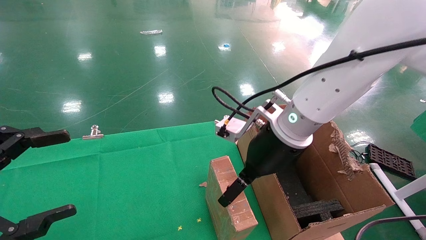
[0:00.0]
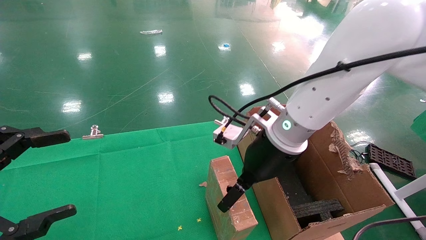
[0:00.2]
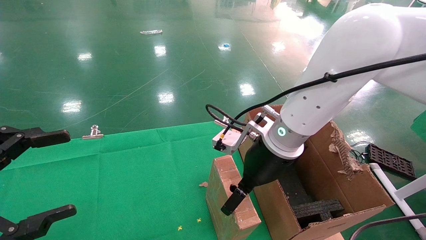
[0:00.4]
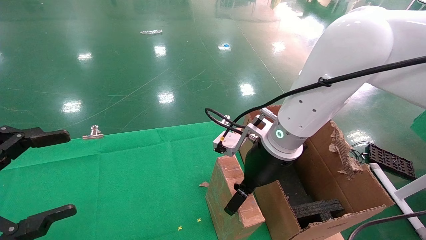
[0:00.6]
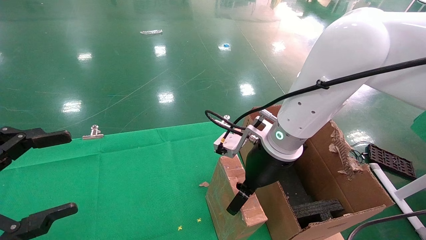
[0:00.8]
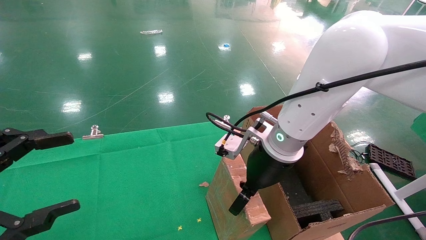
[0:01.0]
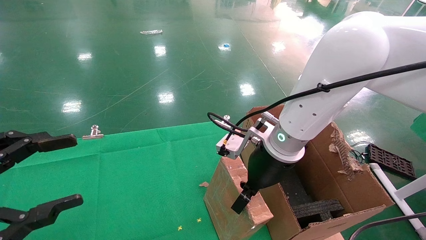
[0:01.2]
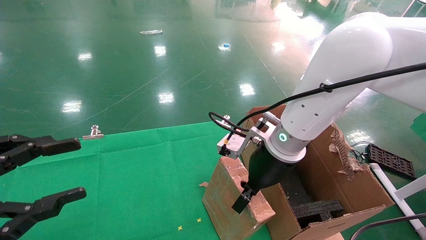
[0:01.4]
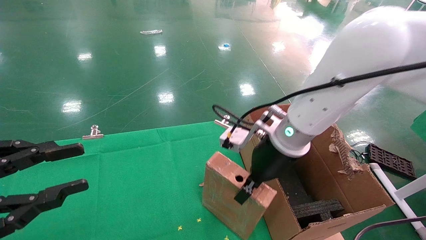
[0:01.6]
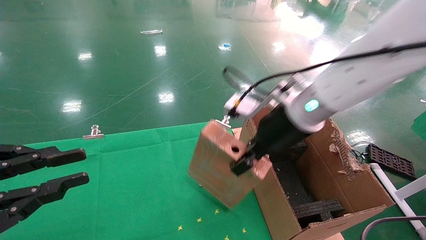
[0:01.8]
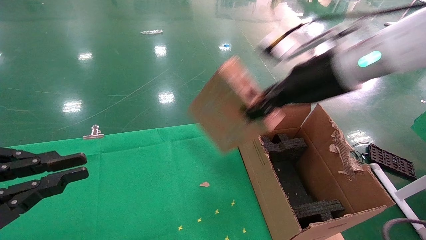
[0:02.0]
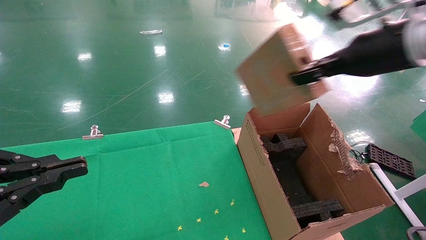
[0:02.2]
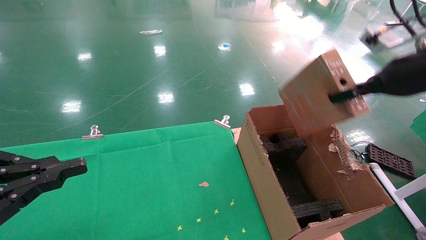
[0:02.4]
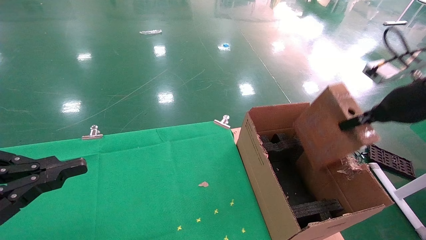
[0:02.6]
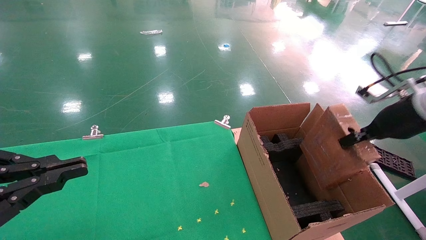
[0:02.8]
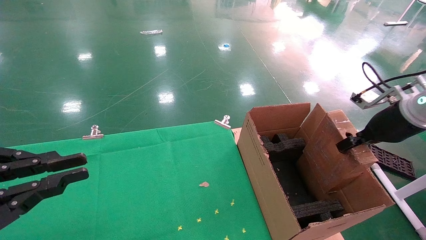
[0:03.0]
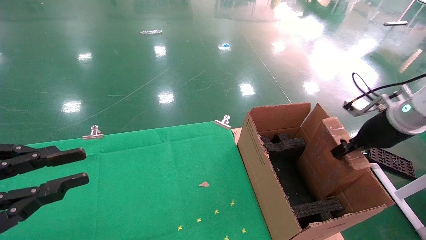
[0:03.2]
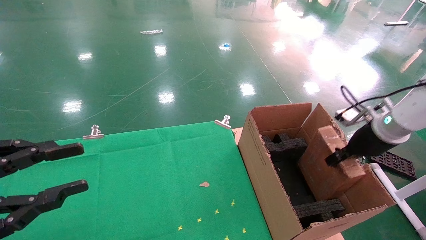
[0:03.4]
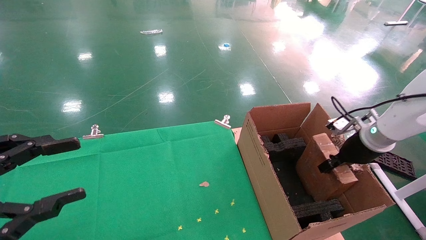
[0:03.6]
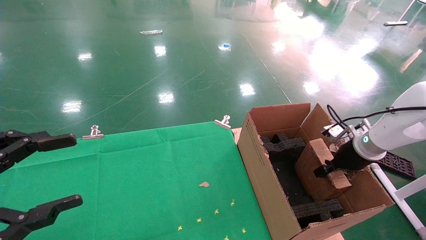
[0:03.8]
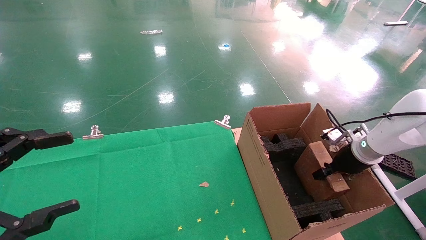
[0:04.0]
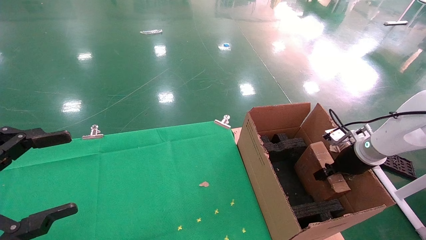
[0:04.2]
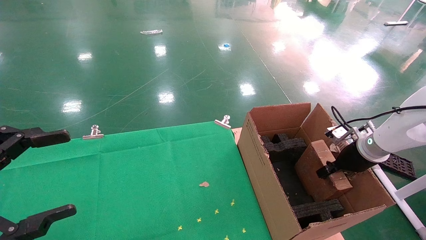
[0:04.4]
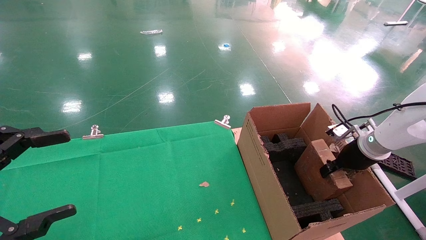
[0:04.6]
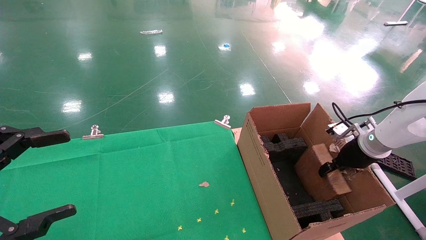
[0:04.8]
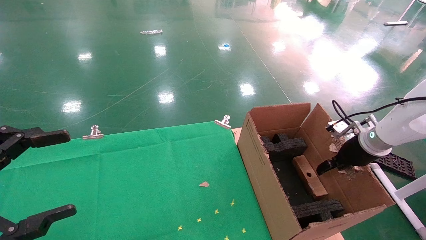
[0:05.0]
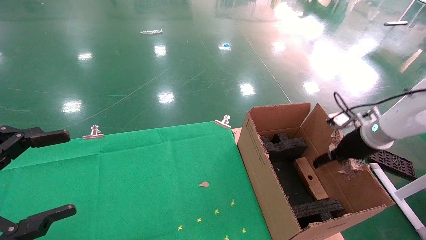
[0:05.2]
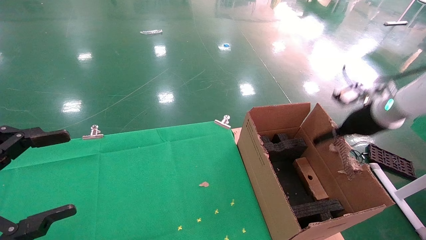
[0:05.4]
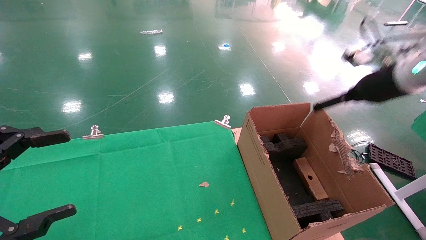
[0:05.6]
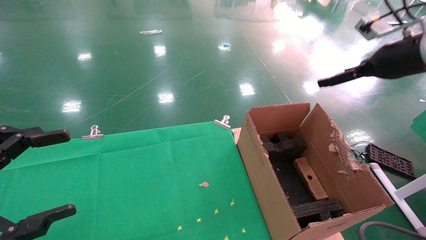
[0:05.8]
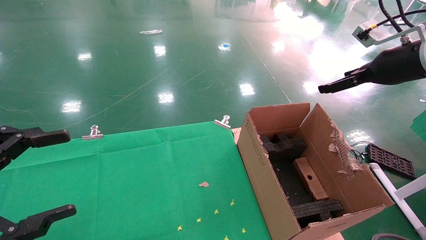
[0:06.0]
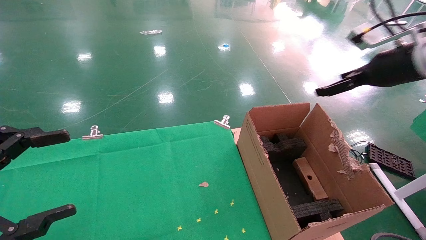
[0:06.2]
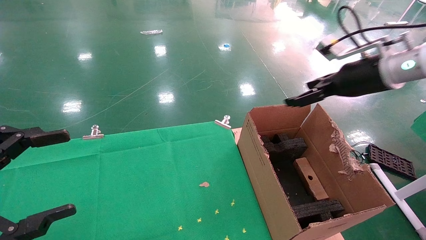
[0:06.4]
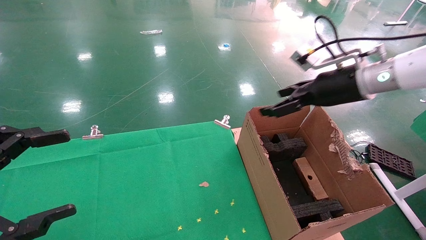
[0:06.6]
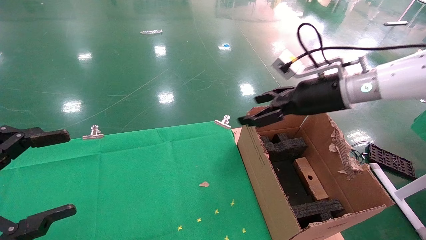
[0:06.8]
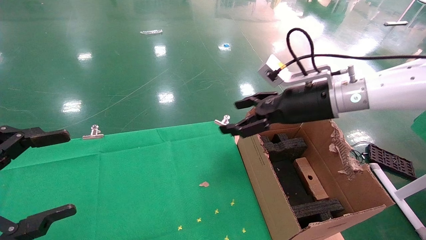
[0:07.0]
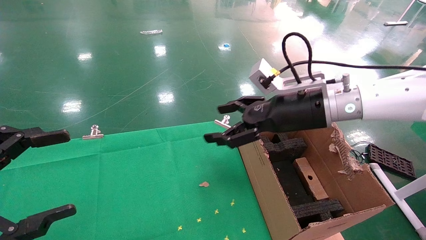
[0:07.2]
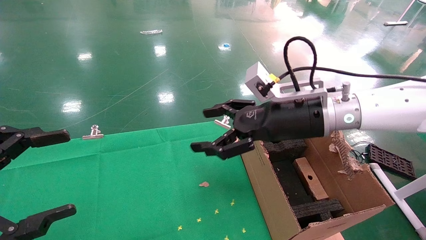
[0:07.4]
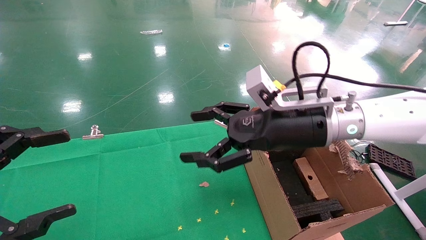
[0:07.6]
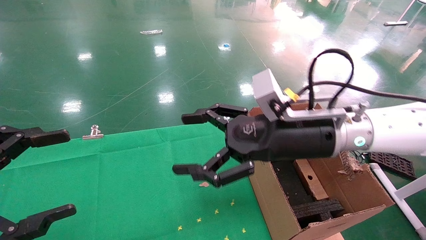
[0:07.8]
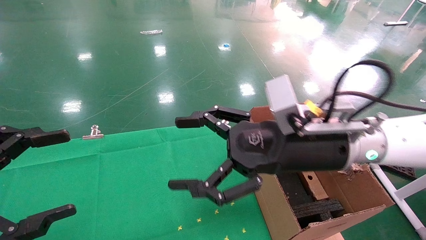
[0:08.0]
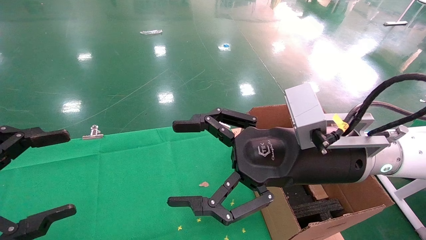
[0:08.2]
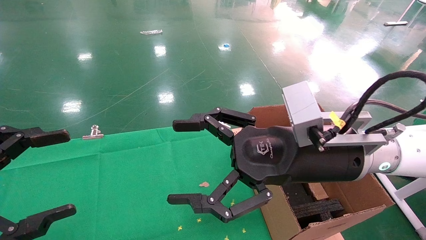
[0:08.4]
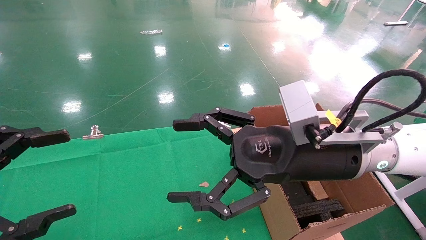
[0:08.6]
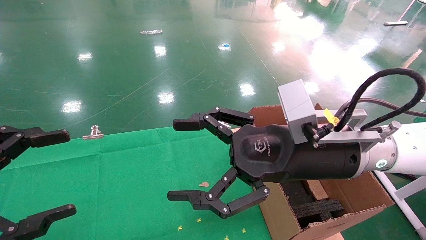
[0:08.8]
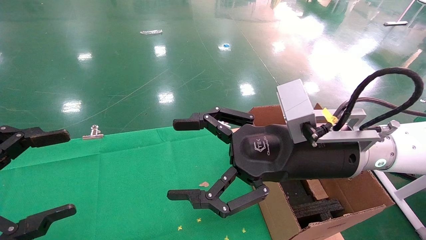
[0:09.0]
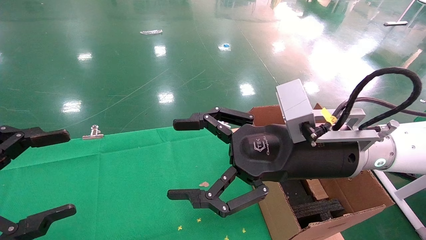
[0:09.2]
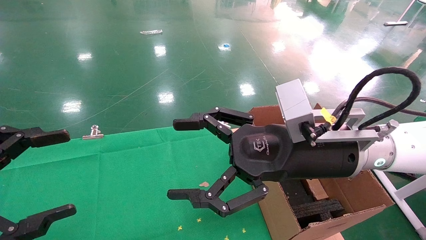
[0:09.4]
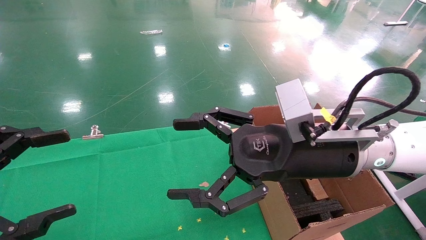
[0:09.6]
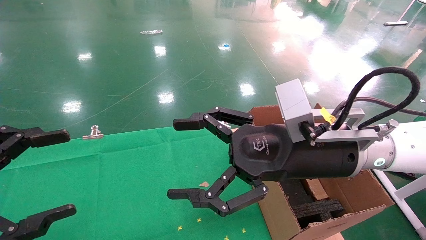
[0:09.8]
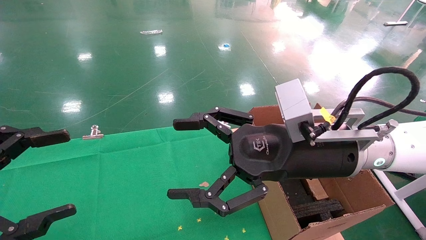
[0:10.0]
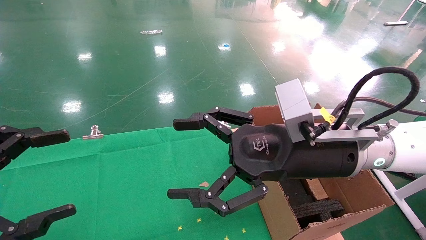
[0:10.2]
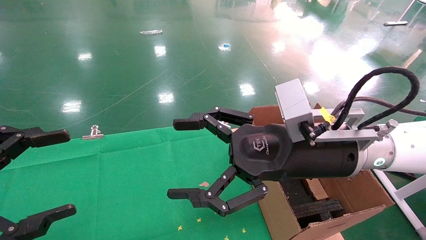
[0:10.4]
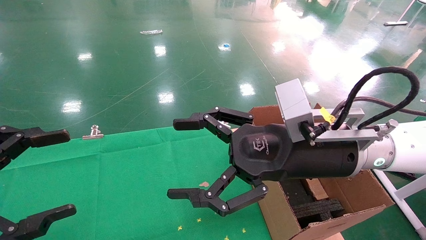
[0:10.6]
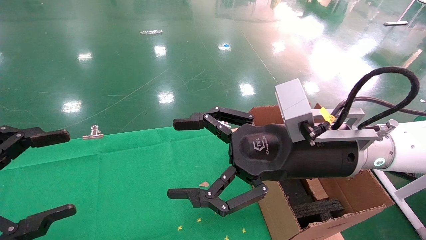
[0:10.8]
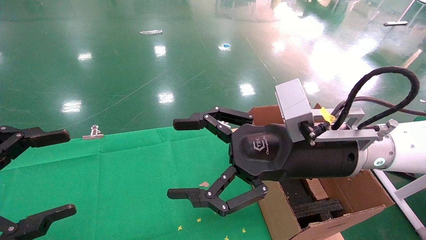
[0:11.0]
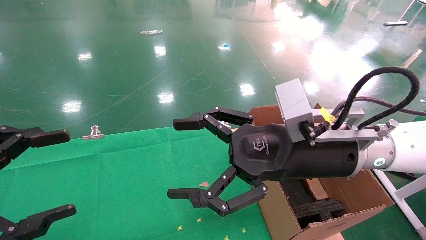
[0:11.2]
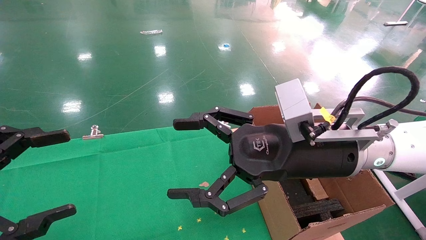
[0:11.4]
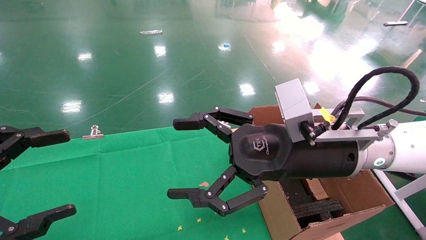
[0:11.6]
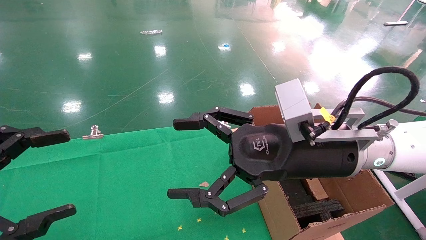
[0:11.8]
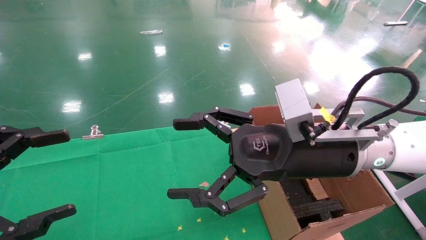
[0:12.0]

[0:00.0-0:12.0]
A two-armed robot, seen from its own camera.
Task of the whole recording: using a robotic arm to pick up a cardboard box and palace it the carton.
Step, 0:01.8 to 0:05.0: Place the mouse and the power cord paper box into the container.
0:00.0 to 0:01.6: The right gripper closes, while the left gripper closes up.
0:01.6 to 0:03.0: The left gripper closes. The right gripper travels to the right by some 25 cm.
0:03.0 to 0:04.4: The left gripper opens up; the right gripper moves downward and forward, some 15 cm.
0:04.4 to 0:06.0: The right gripper travels upward by roughly 20 cm, and opens its fingers.
0:06.0 to 0:07.6: The right gripper moves to the left and downward, some 25 cm.
0:07.6 to 0:09.0: The right gripper goes about 5 cm backward.
0:09.0 to 0:12.0: Both grippers stay put.
